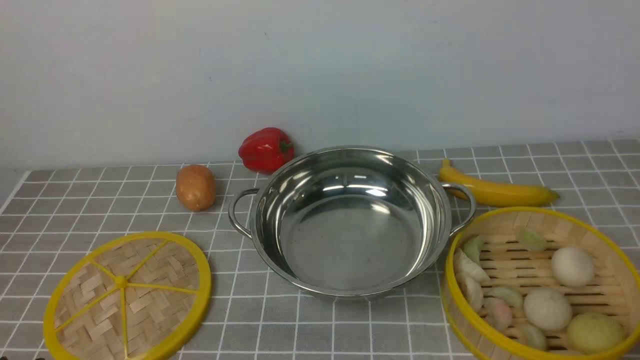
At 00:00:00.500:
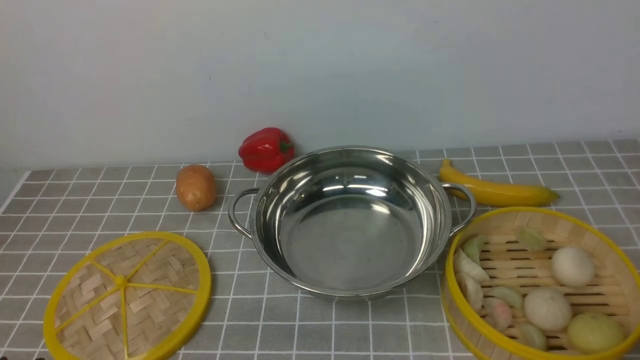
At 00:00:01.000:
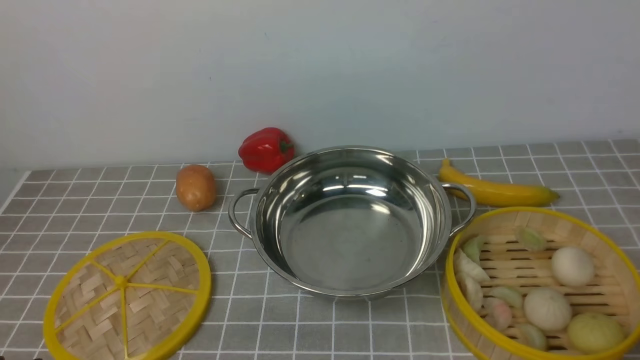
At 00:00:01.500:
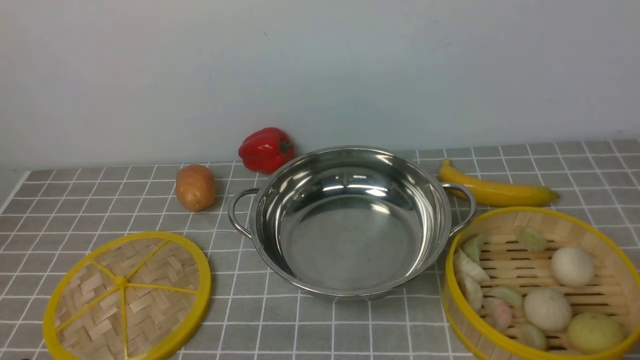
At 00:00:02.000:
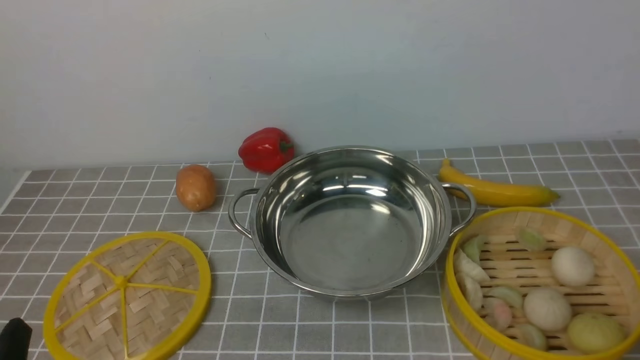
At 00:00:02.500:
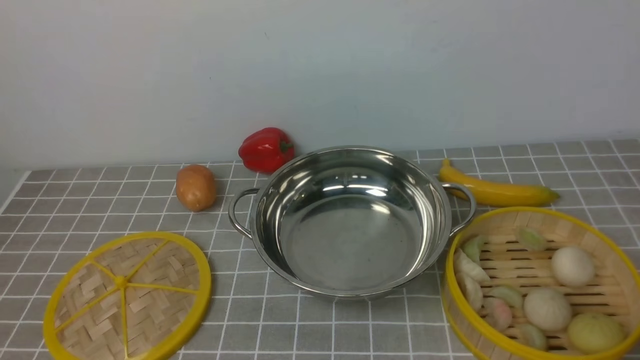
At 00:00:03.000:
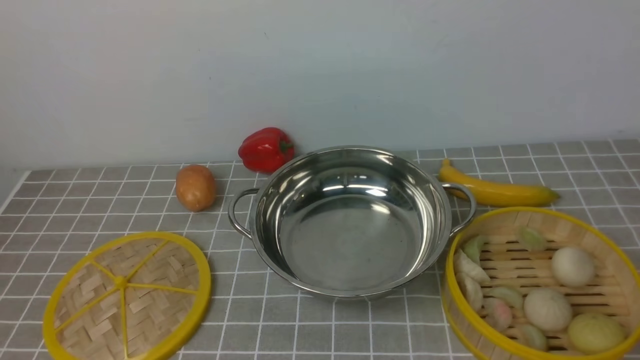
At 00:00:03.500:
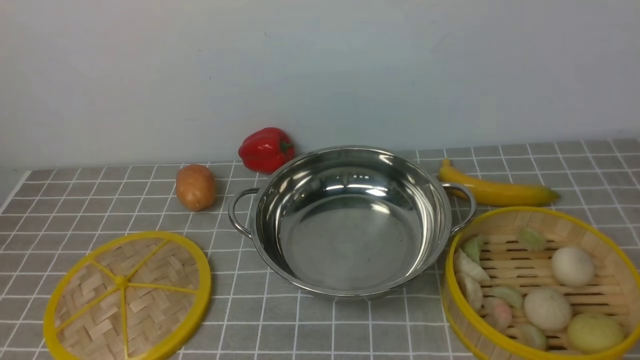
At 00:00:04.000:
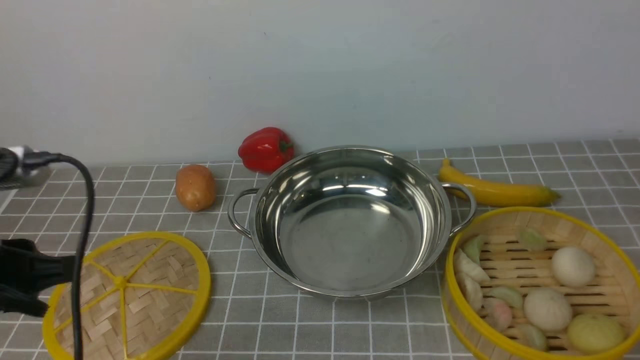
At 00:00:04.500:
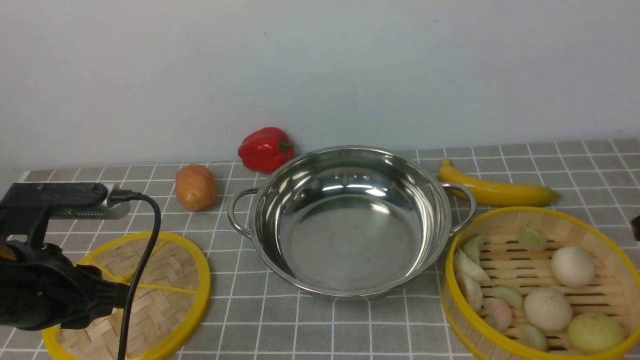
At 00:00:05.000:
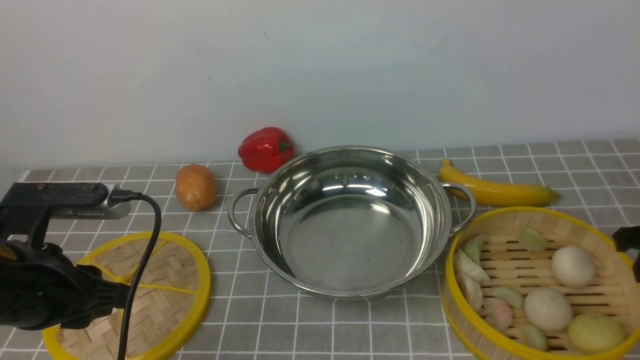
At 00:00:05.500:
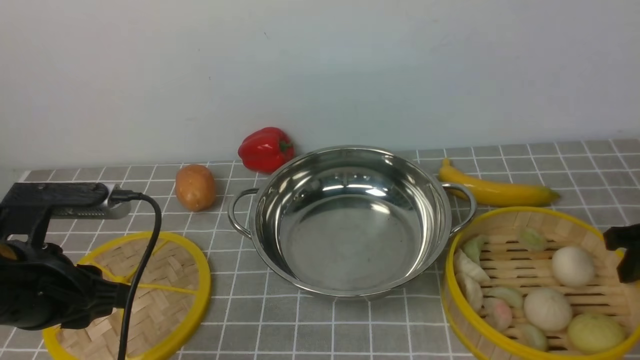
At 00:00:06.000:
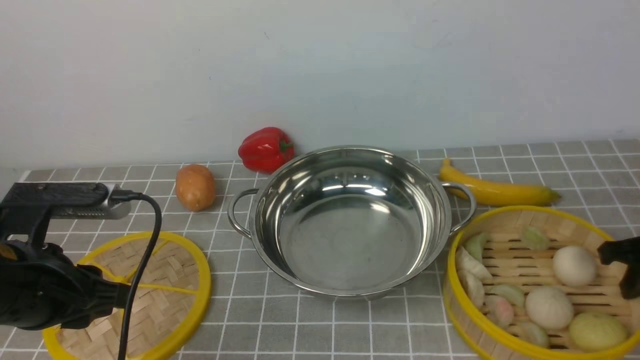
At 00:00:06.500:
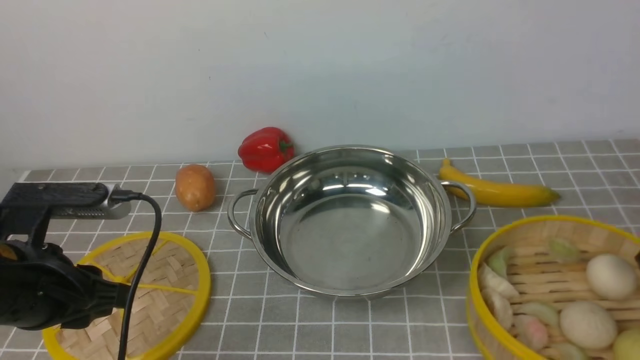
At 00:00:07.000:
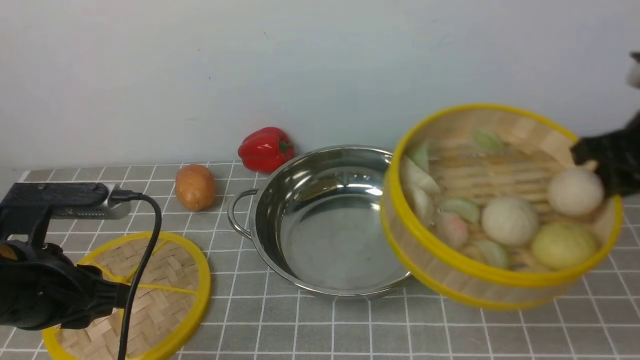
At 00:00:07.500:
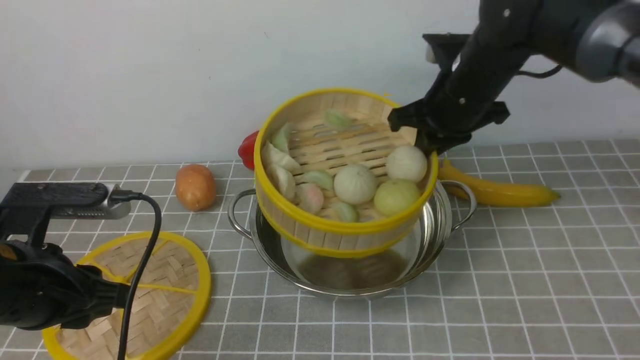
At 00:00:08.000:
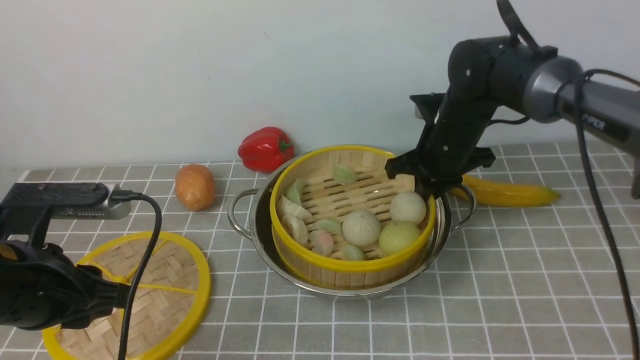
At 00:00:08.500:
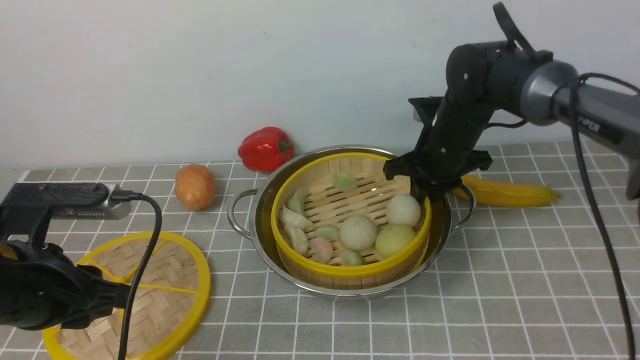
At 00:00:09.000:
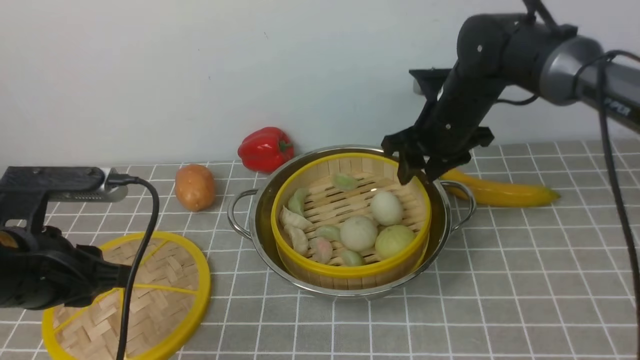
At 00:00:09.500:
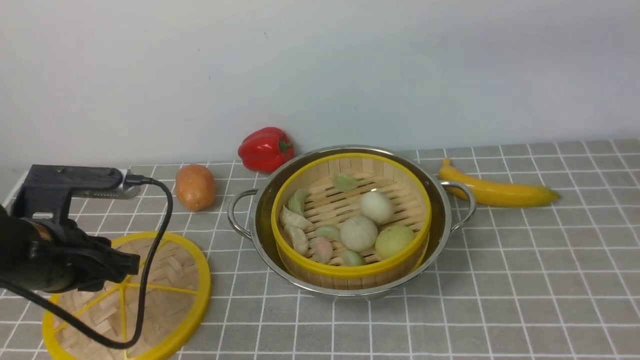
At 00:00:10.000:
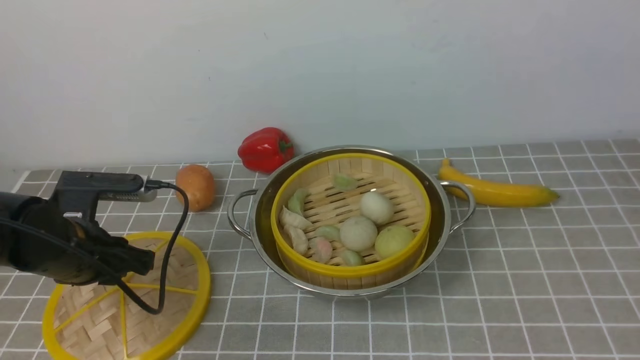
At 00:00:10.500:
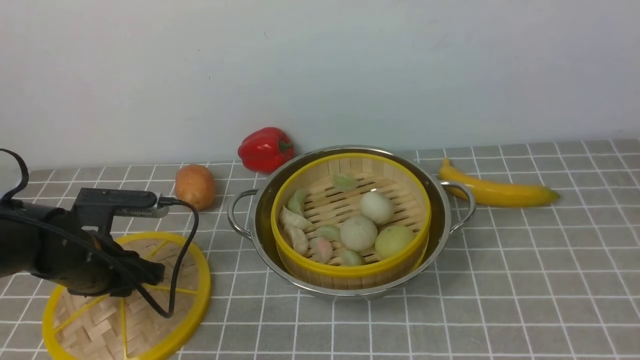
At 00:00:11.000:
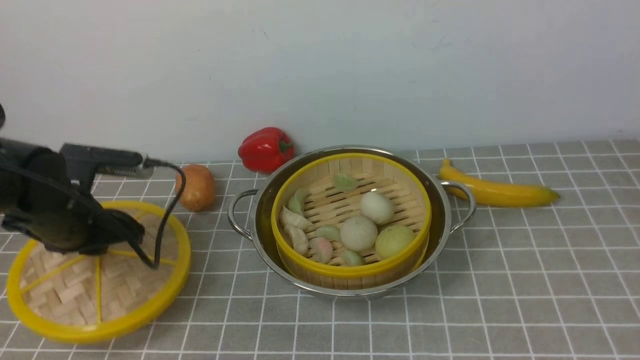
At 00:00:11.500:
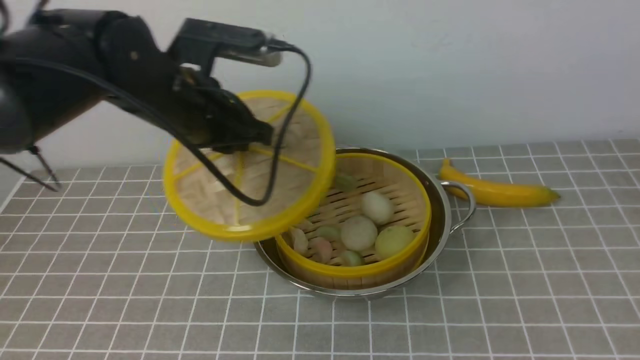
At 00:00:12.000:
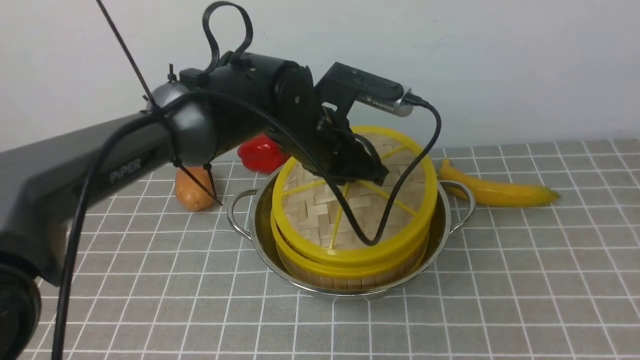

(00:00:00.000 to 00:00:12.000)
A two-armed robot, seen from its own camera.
Task of the whole recording: place the steamer in the pot on the grey tablecloth, and put the lid on the steamer.
Step, 00:00:00.000 - 00:00:06.000: use the right arm to lift the steamer closest to it.
Step, 00:00:06.500 - 00:00:09.000: use the right arm to put the steamer into the iron steamer pot in the middle.
Step, 00:00:09.500 - 00:00:10.500: use the left arm to lift the lid of the steamer.
00:00:02.000 - 00:00:04.000: The left gripper travels forward and upward by some 15 cm.
00:00:04.000 - 00:00:06.000: The left gripper changes place by about 5 cm; the right gripper shifts about 20 cm downward and forward, and closes.
00:00:06.000 - 00:00:08.000: The right gripper moves to the left and forward, some 25 cm.
00:00:08.000 - 00:00:10.000: The left gripper is displaced forward and downward by roughly 10 cm. The right gripper moves backward and upward, some 60 cm, and opens up.
00:00:10.000 - 00:00:12.000: The left gripper goes about 25 cm to the right.

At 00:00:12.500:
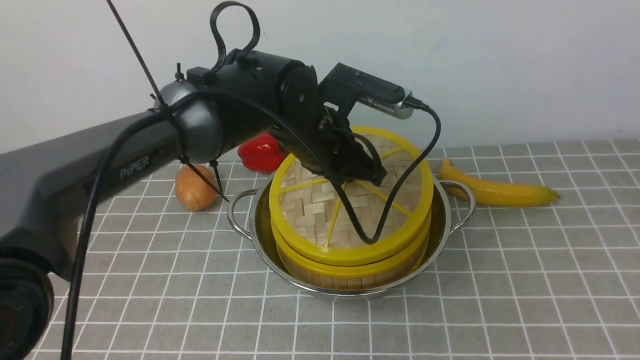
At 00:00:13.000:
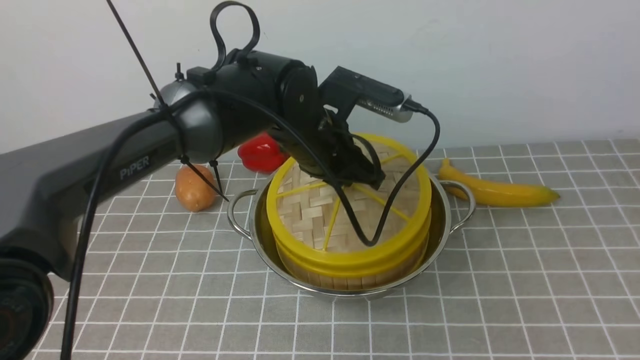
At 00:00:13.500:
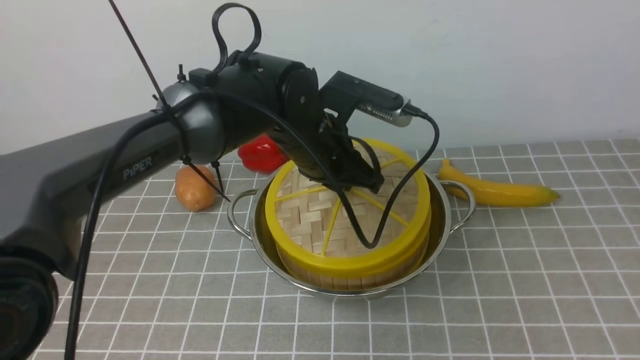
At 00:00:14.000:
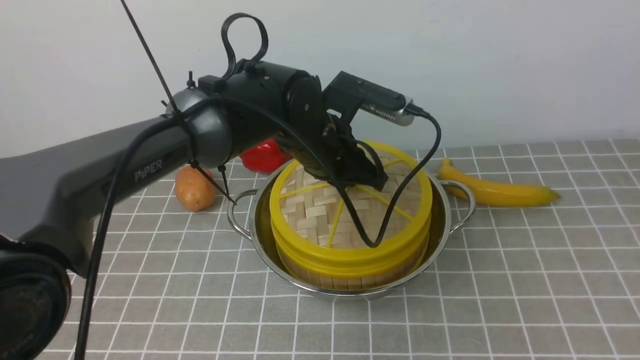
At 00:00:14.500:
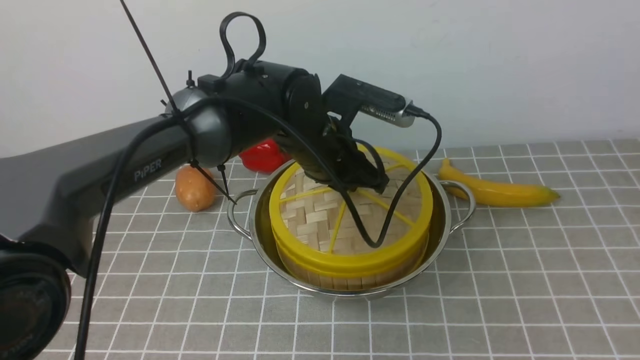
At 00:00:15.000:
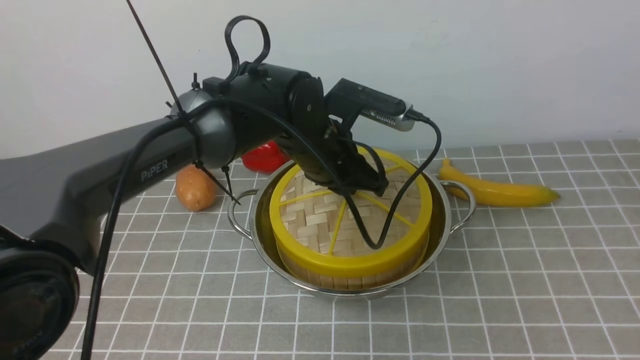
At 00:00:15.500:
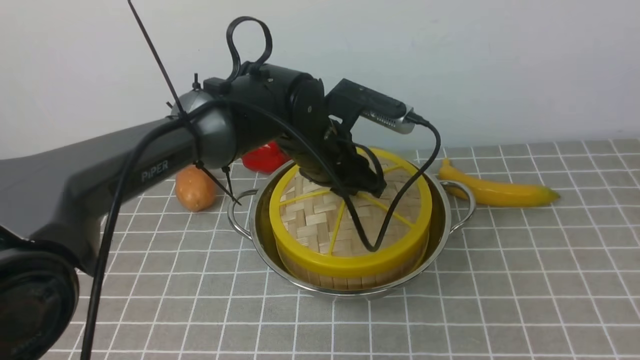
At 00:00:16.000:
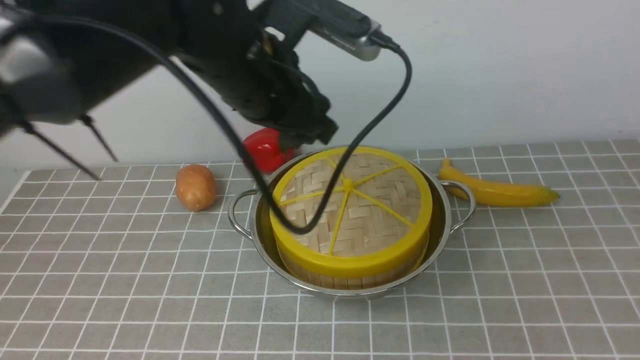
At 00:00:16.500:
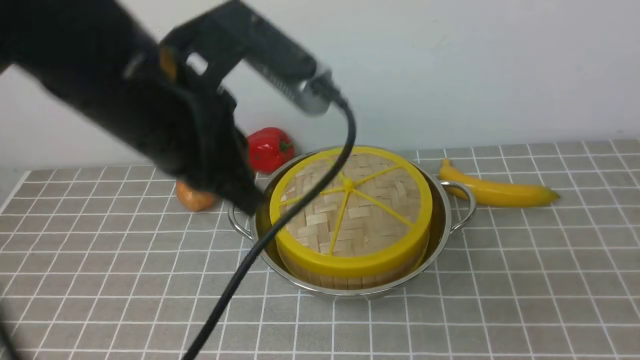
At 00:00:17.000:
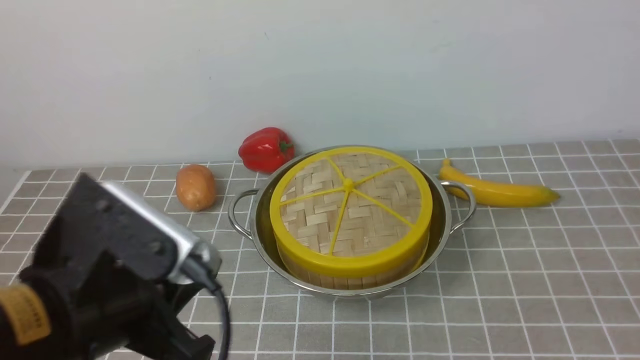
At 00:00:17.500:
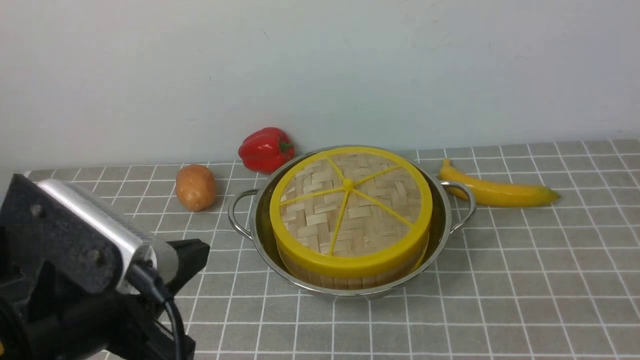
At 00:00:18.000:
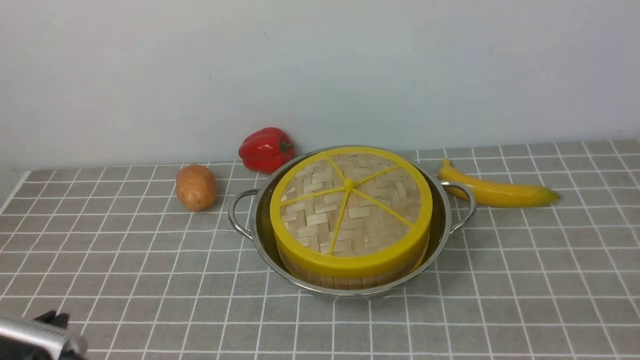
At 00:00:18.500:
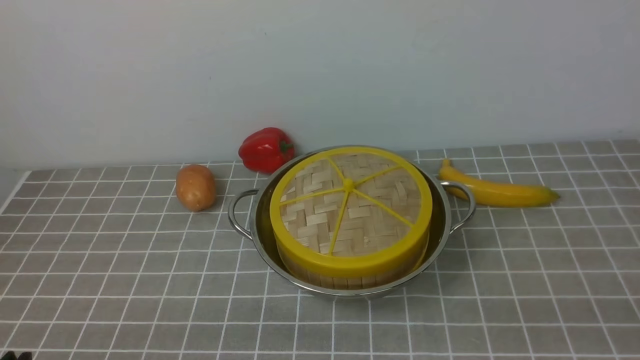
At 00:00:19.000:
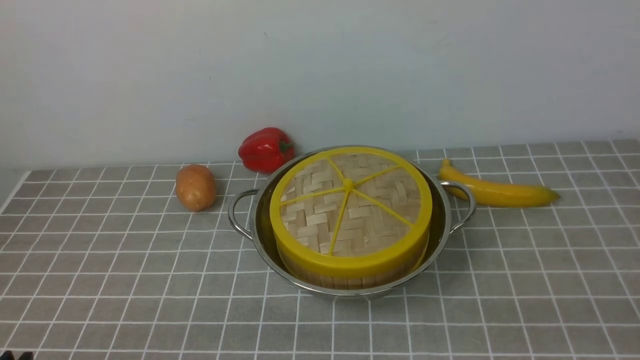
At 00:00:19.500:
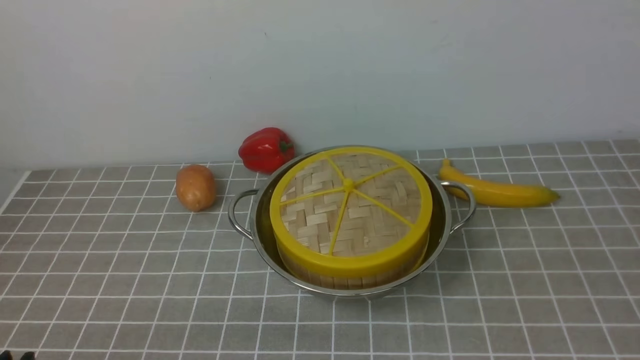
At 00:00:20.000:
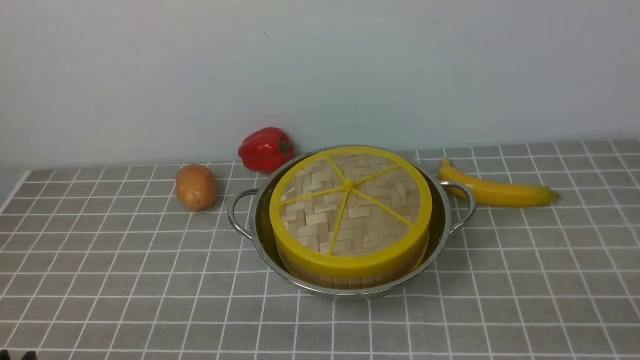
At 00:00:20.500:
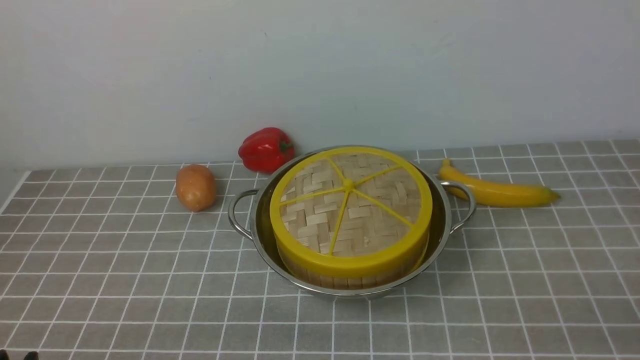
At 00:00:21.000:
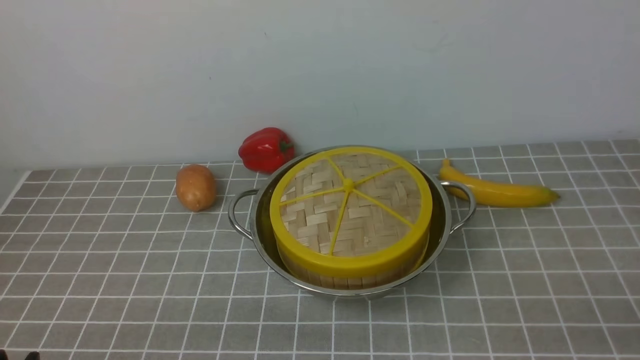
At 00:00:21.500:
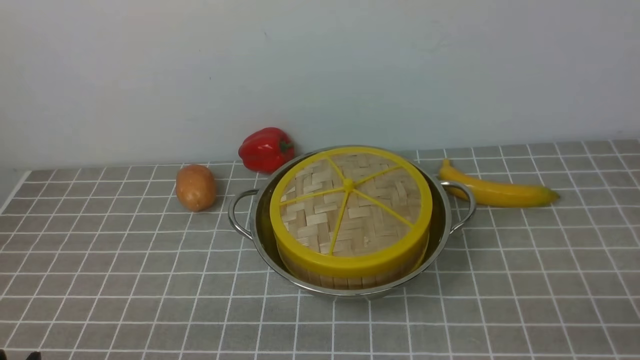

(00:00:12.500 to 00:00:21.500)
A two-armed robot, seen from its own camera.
Task of the whole recording: place the steamer in the pot on the grey tablecloth, and put the lid on the steamer.
Step, 00:00:12.500 - 00:00:15.500: use the left arm to place the steamer lid on the steamer.
00:00:12.500 - 00:00:14.500: Both grippers stay about where they are.
00:00:14.500 - 00:00:17.000: The left gripper goes roughly 30 cm backward and to the left, and closes its fingers, while the right gripper goes some 30 cm downward, and closes its fingers.
00:00:17.000 - 00:00:19.500: The right gripper opens. Meanwhile the left gripper travels downward, to the left and backward by approximately 20 cm, and opens.
